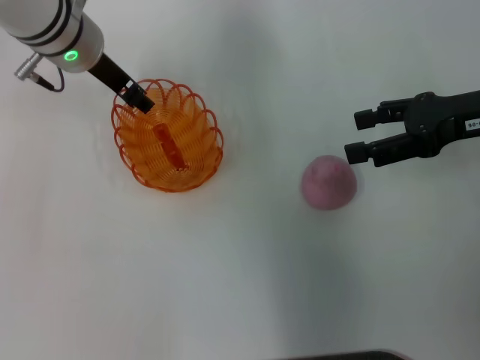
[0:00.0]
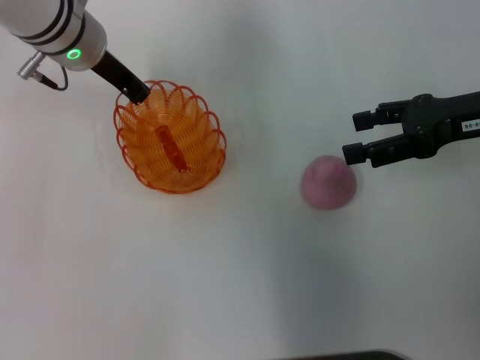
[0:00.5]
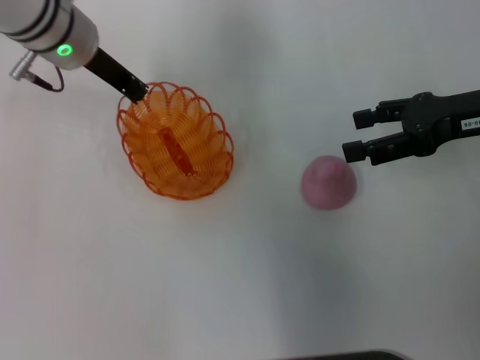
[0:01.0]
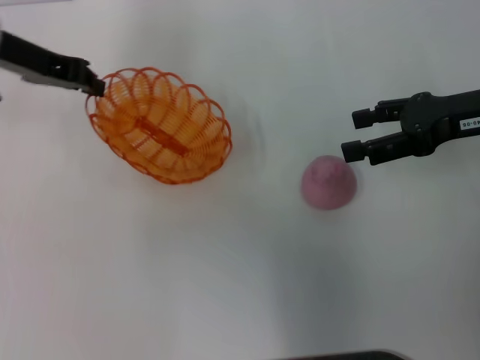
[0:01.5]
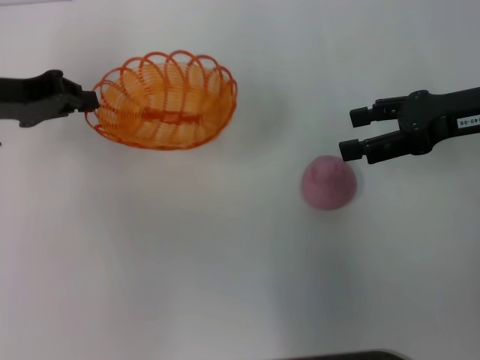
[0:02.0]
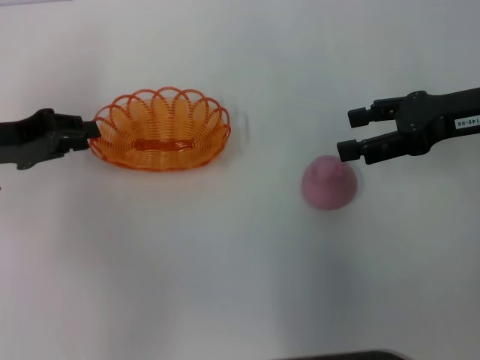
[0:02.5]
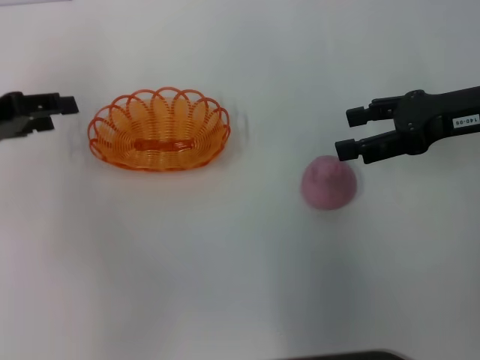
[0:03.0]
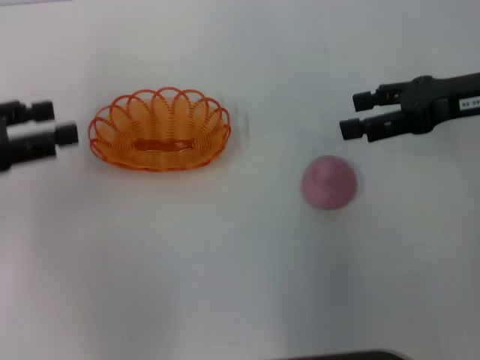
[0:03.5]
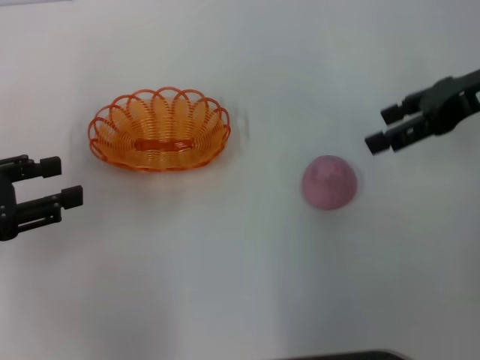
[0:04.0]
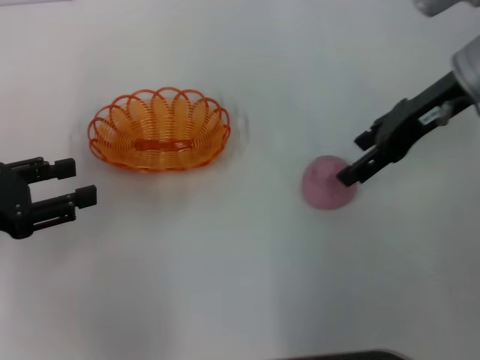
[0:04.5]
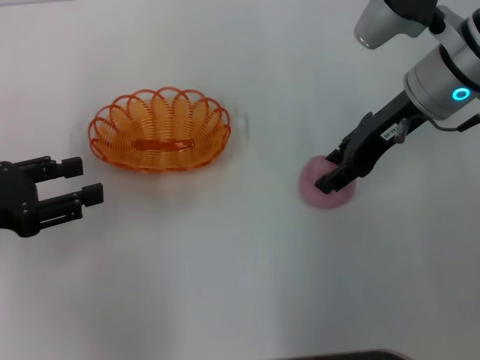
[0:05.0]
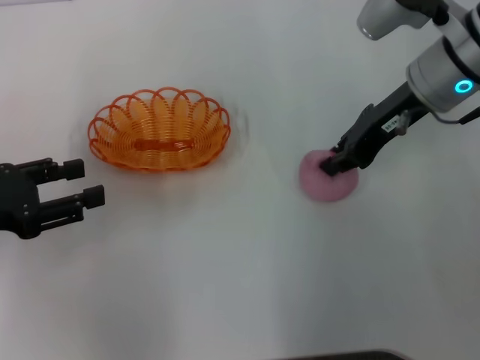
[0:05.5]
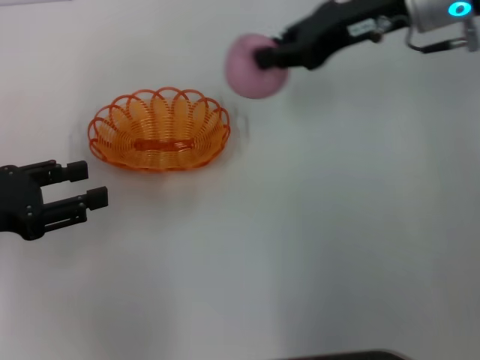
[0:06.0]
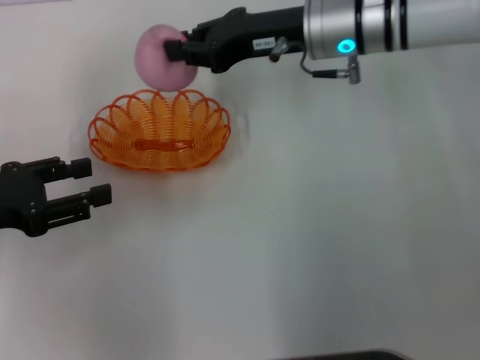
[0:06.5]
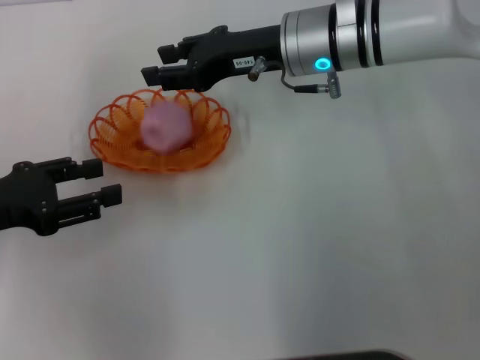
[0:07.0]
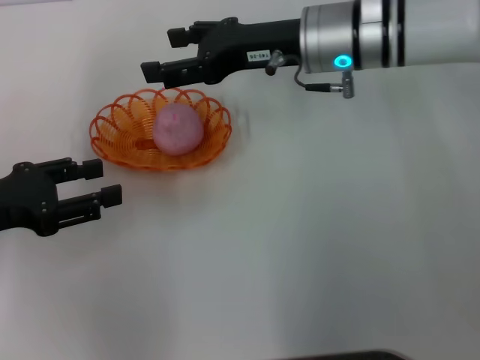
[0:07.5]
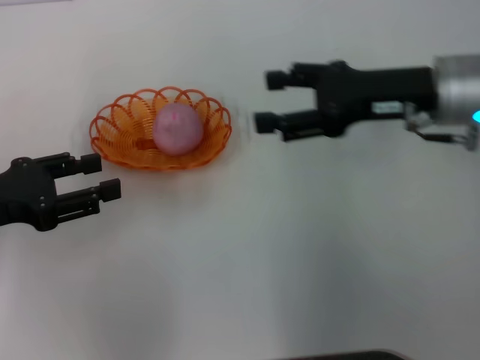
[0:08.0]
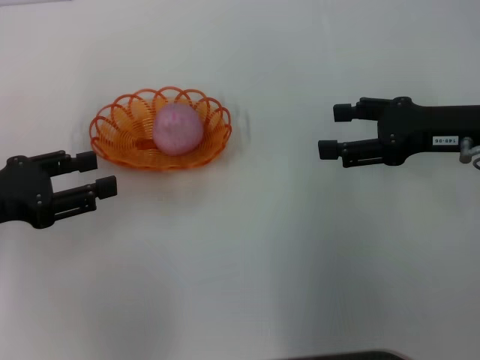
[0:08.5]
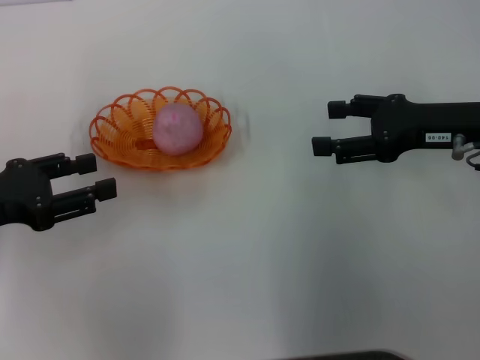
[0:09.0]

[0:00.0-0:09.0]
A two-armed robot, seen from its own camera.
Step, 0:01.5 to 0:02.5: Place the basket in the center of view with the left gripper.
Step, 0:03.5 to 0:06.0: Pick up the peach with the right gripper.
Step, 0:06.5 to 0:07.0: Place the peach into the basket with the right gripper.
0:00.0 to 0:02.0: The left gripper moves to the left and backward, about 15 cm, and closes up.
0:02.0 to 0:04.5: The right gripper travels to the left by roughly 5 cm, while the left gripper travels backward by roughly 10 cm, and opens its fingers.
0:04.5 to 0:07.0: The right gripper heads to the left, covering approximately 15 cm, and closes.
0:07.0 to 0:09.0: The right gripper is displaced to the right and backward by some 20 cm, and opens up.
